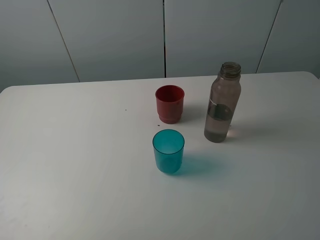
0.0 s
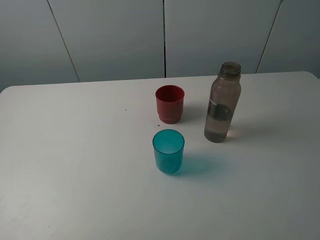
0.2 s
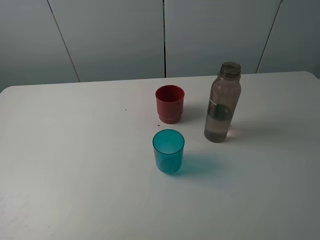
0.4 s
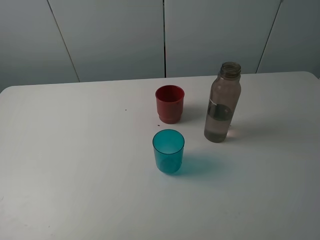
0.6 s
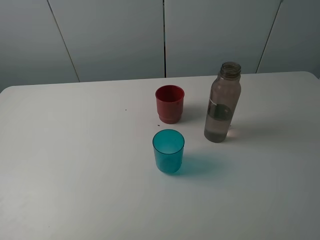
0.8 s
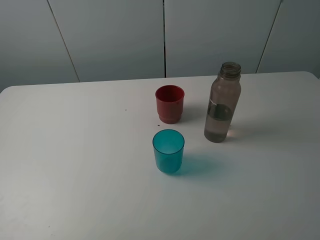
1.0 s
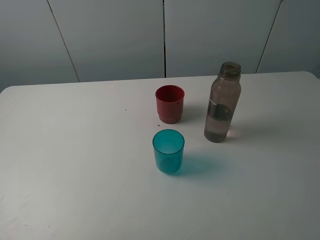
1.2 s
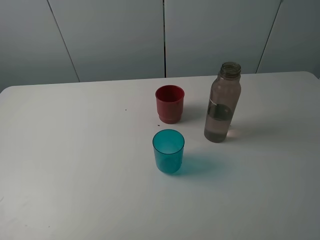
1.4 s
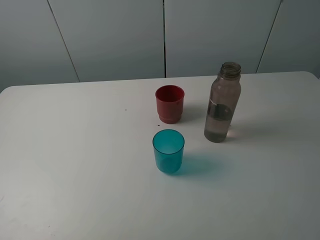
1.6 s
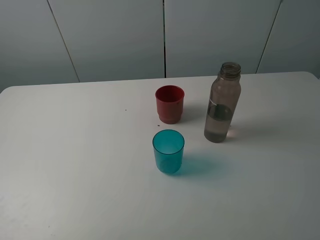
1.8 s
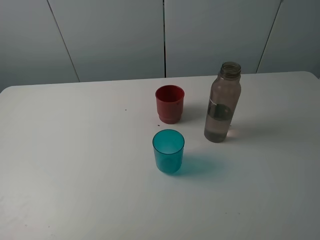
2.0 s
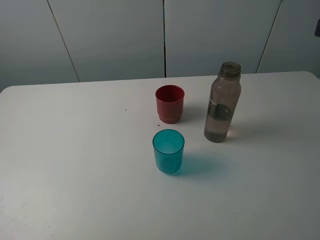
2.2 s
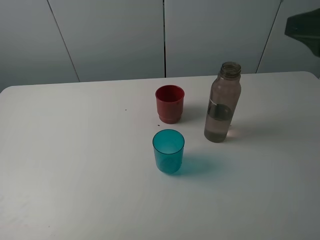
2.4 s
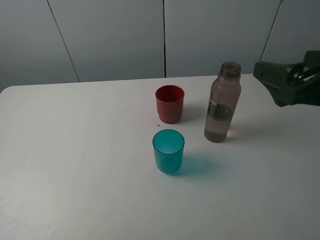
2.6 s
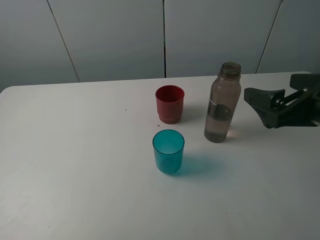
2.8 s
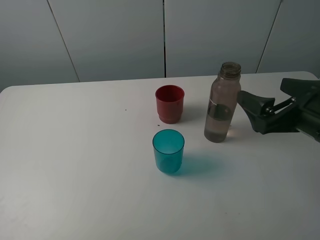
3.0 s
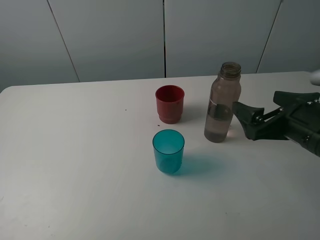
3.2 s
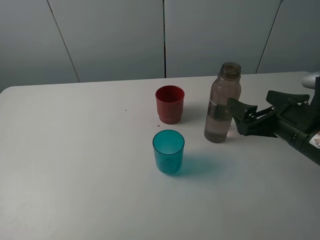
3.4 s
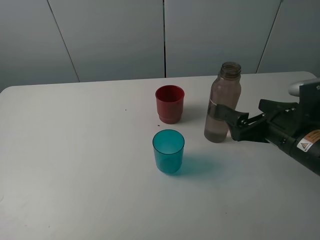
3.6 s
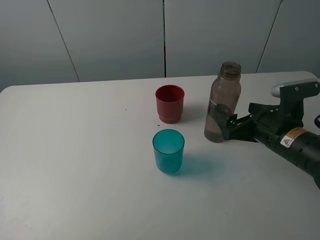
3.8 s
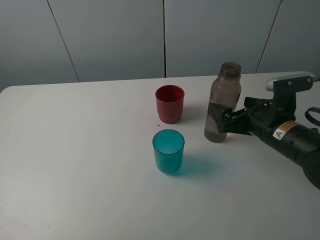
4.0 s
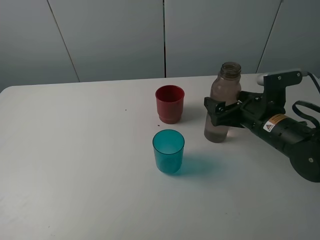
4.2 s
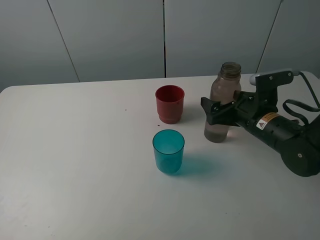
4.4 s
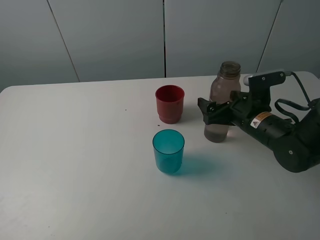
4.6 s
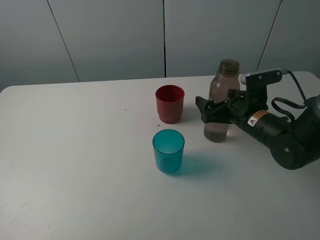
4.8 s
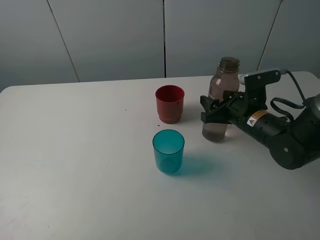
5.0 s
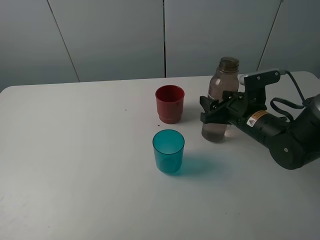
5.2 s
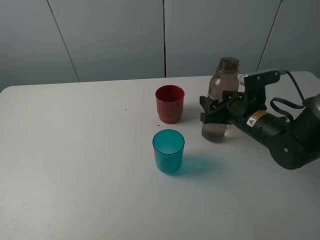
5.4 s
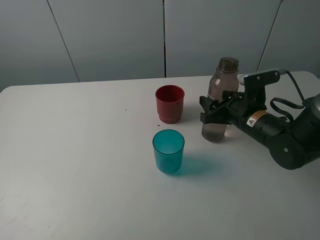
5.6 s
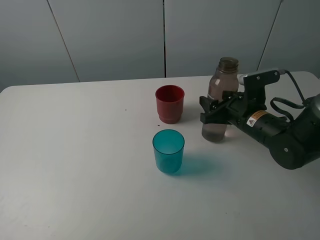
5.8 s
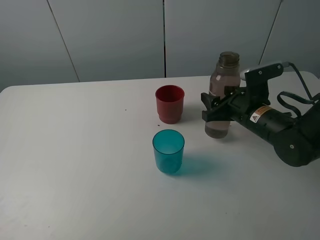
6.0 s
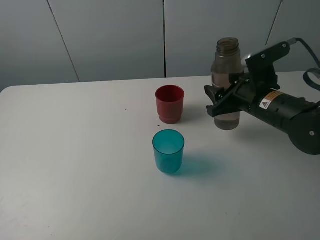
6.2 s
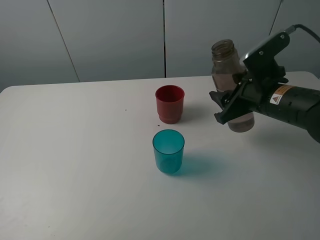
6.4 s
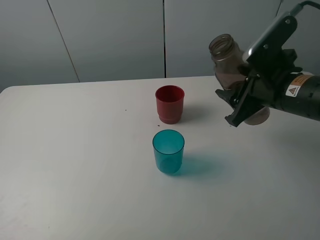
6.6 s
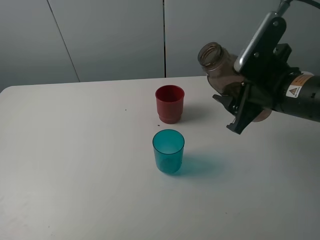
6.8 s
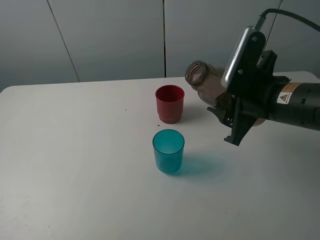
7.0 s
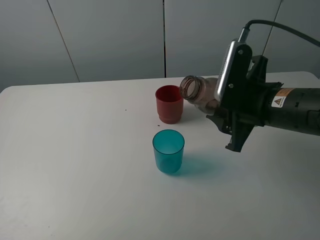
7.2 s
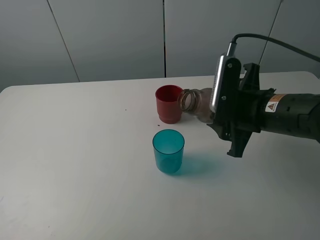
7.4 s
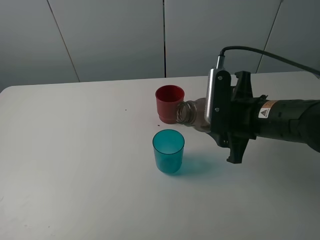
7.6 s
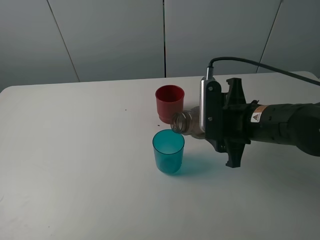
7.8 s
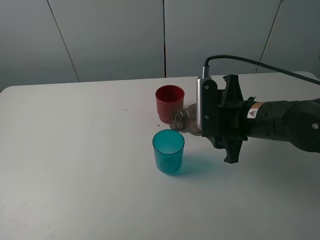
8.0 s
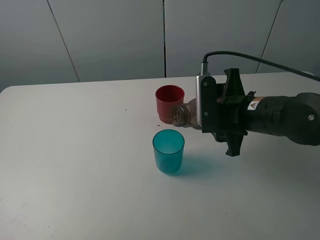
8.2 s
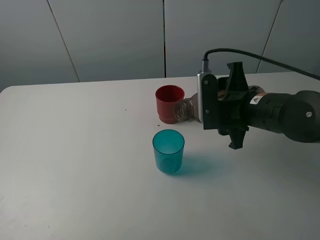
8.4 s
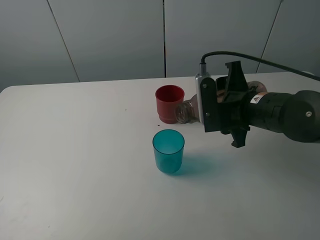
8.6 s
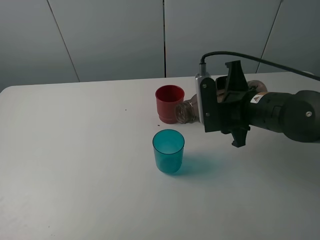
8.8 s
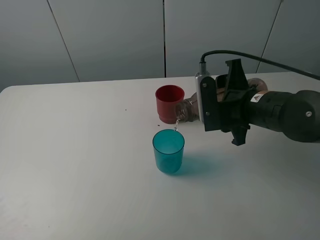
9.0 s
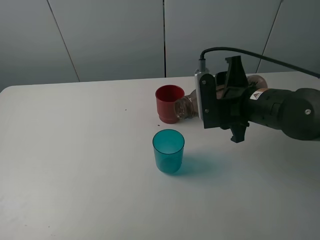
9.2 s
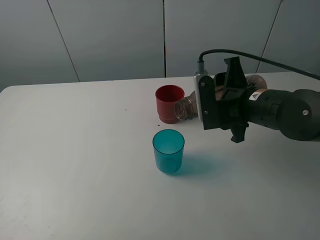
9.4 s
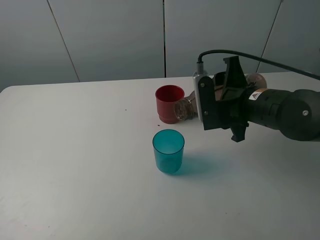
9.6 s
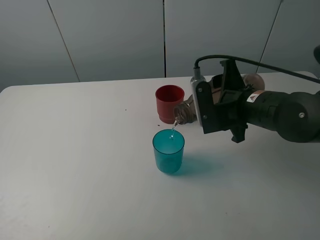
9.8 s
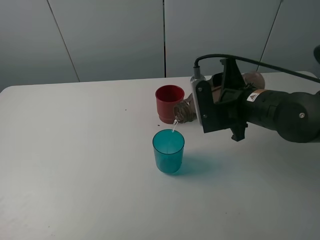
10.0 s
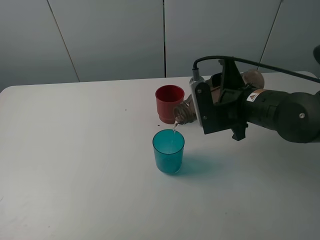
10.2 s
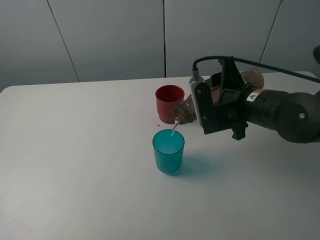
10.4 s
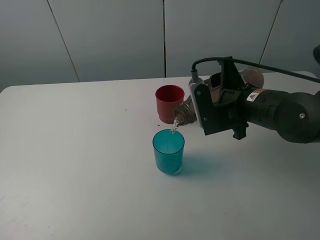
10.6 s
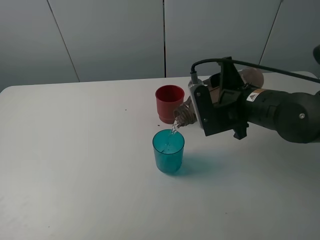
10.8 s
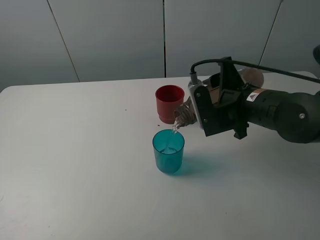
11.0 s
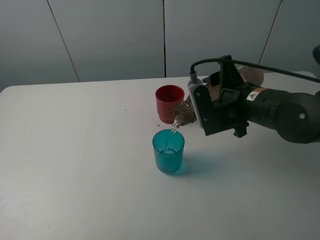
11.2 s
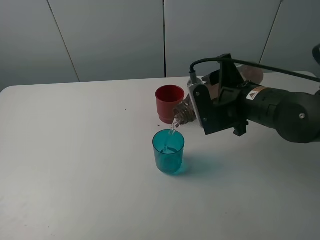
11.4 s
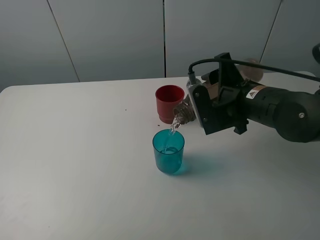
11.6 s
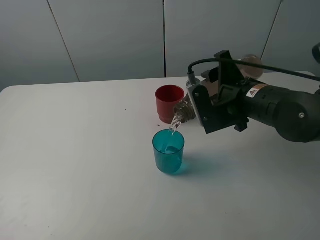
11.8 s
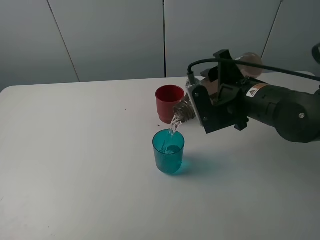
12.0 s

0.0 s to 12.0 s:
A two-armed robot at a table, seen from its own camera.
Task of the whole recording: pick up the bottle and pour water into the cup, then pick up the cup containing water and pour it into another cup.
Step, 0.0 to 5.2 s: Grasp the brown bottle with the right gripper.
1.6 to 3.0 s: The right gripper travels forward and downward by roughly 20 cm.
3.0 to 4.4 s: The right gripper shifts approximately 15 cm forward and downward.
4.4 to 6.0 s: The right gripper closes up.
6.0 to 7.6 s: The right gripper shifts about 5 cm backward.
7.6 to 9.0 s: The grippers move only a little.
9.0 to 12.0 s: The grippers stay close to where they were, moving slightly.

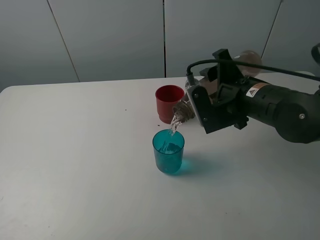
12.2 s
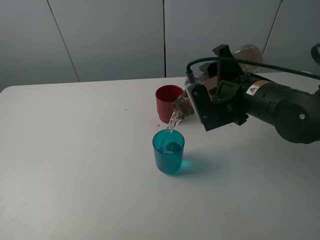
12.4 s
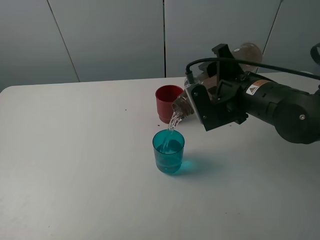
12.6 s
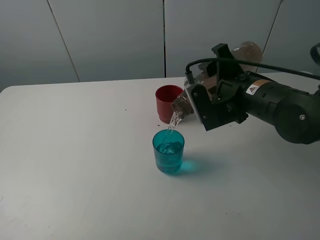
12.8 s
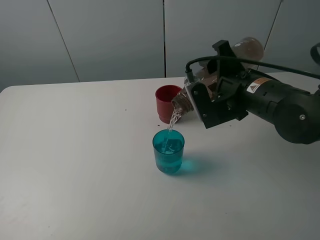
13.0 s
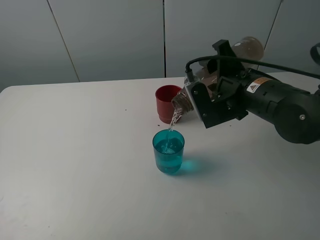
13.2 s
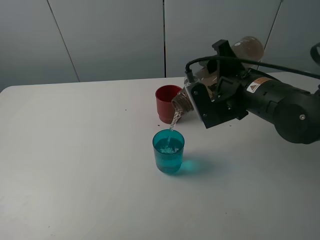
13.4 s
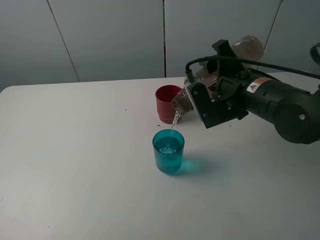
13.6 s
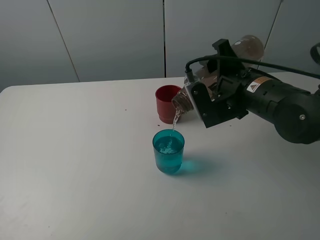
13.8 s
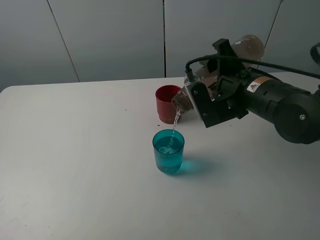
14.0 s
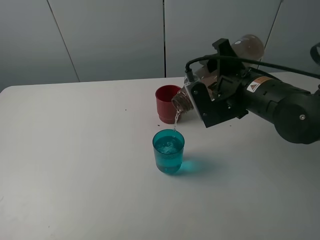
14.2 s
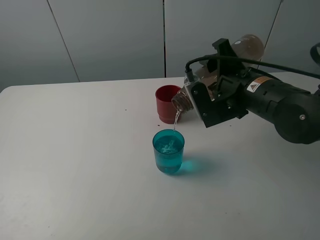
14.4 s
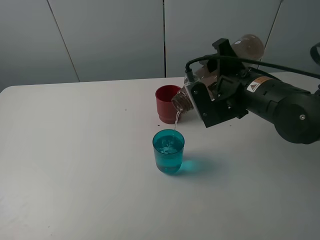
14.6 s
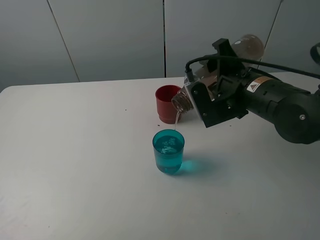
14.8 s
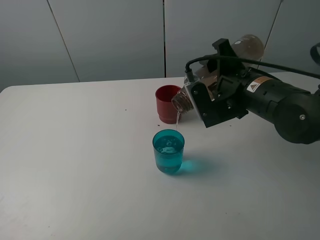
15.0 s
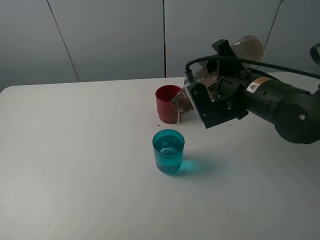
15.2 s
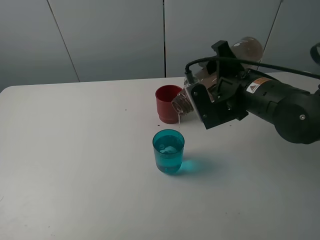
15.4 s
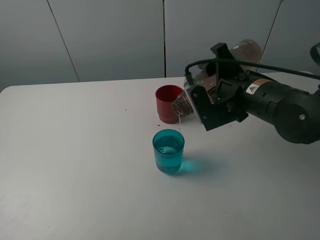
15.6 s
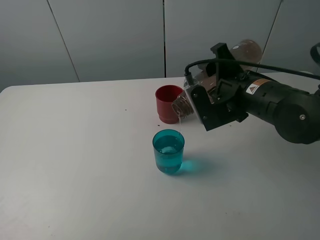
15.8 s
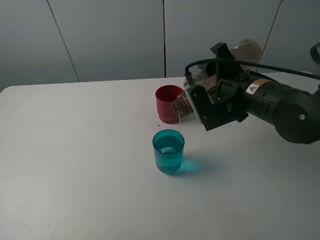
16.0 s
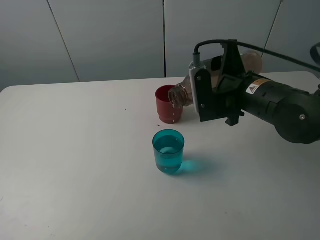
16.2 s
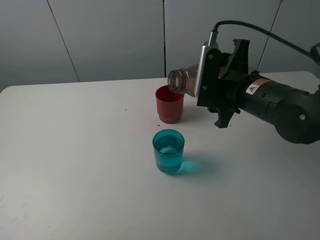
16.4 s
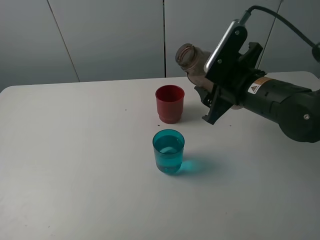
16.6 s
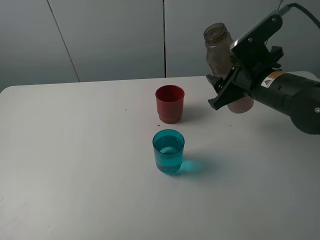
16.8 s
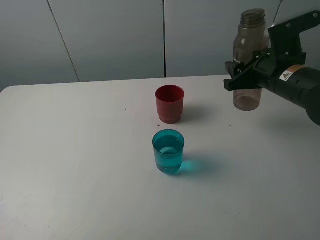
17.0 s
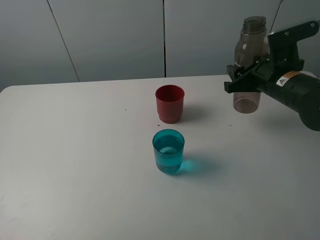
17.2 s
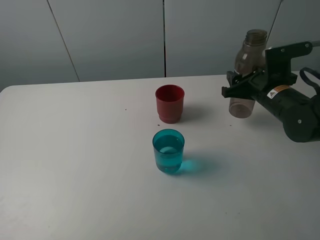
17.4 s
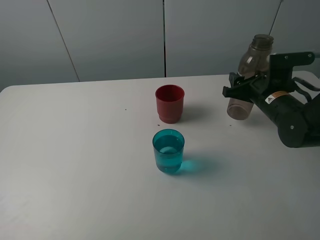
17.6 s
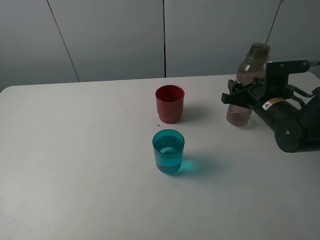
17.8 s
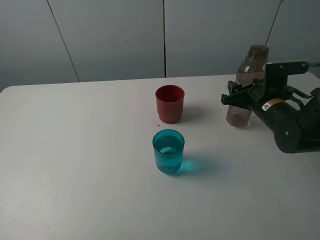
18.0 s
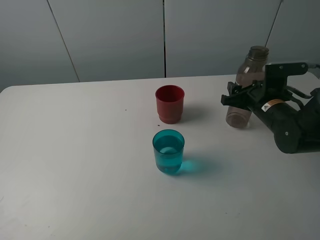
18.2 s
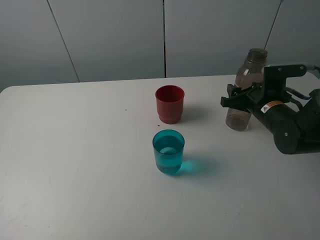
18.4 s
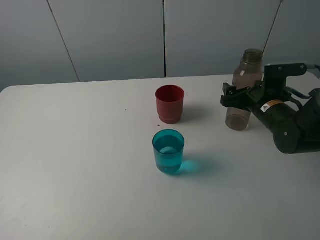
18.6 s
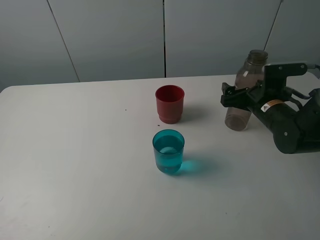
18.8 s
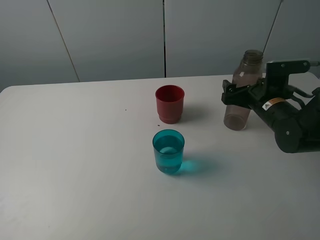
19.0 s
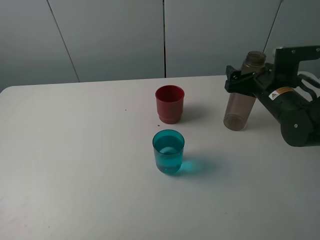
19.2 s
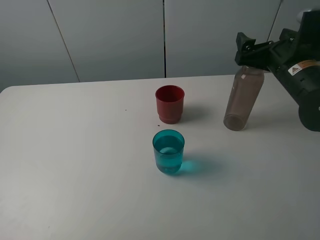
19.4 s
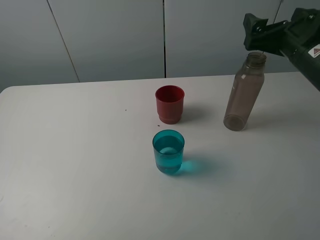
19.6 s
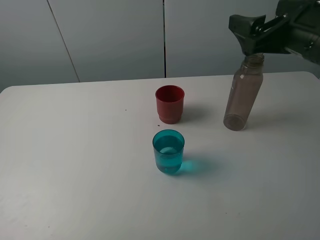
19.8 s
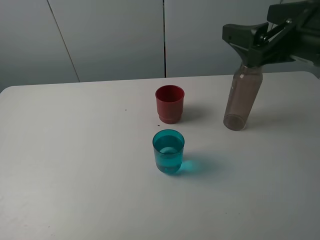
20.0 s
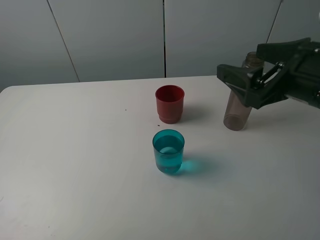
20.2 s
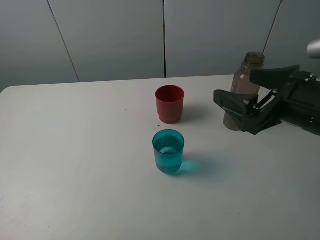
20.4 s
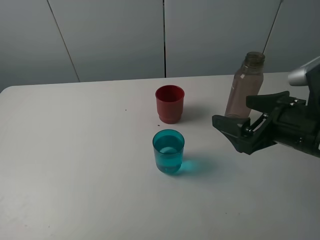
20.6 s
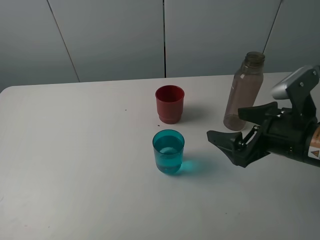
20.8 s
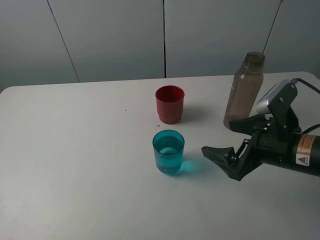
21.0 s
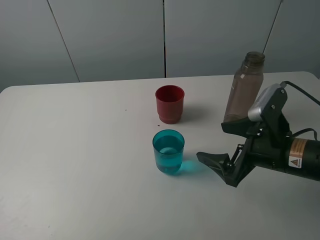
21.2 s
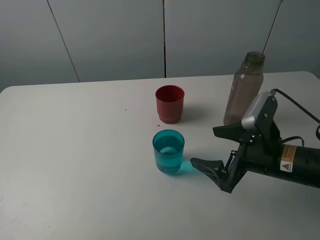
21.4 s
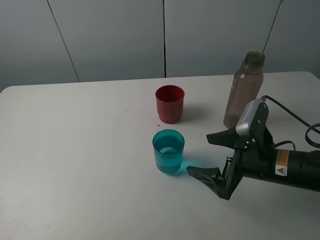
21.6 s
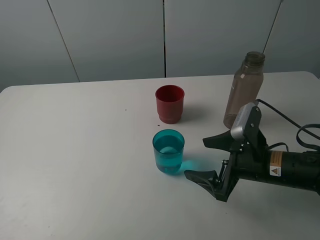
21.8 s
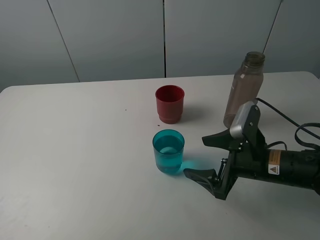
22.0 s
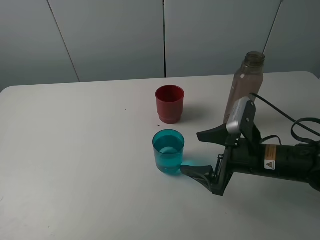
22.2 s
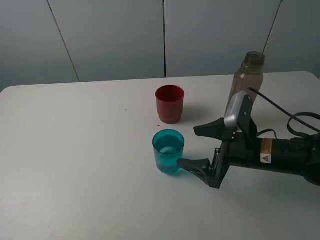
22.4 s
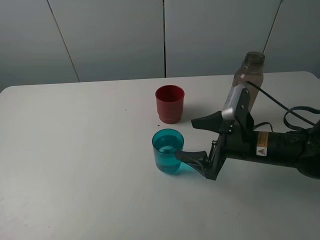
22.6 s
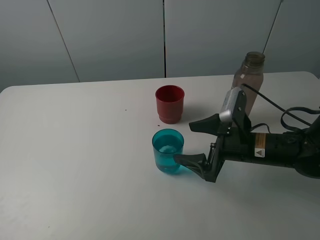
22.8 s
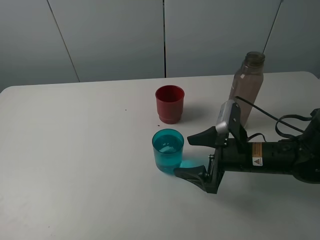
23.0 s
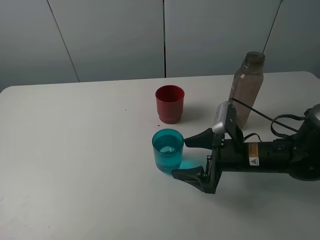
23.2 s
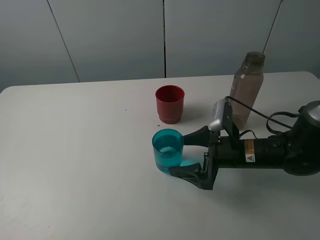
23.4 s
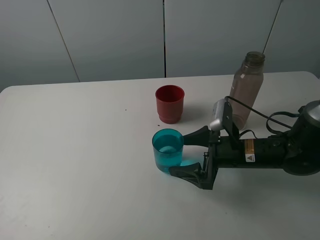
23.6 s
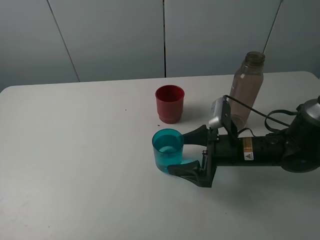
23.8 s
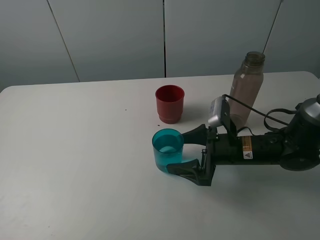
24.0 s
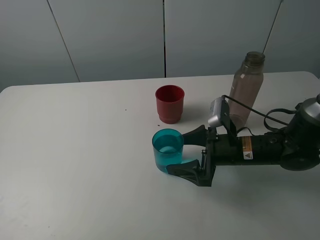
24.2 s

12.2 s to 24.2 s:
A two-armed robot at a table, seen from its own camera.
Task of the whole recording: pick up the bottle and pour water into the cup, then pick up the cup containing water and pour it into another cup.
Step, 12.2 to 16.2 s: Pour water from brown bottle to blue cup with the right gripper.
Step, 16.4 to 19.0 s: Place the brown bottle with the right gripper.
12.2 to 13.8 s: There are only small adjustments of the grippers.
13.8 to 15.2 s: Both grippers stay about where they are.
16.6 to 18.2 s: The right gripper is displaced downward and to the right by about 10 cm.
18.2 to 19.8 s: The right gripper goes roughly 20 cm upward, and opens its fingers.
19.8 to 21.2 s: The right gripper travels downward by approximately 15 cm.
21.2 to 22.6 s: The right gripper ends up roughly 5 cm from where it was.
22.6 to 24.2 s: The grippers make only small movements.
